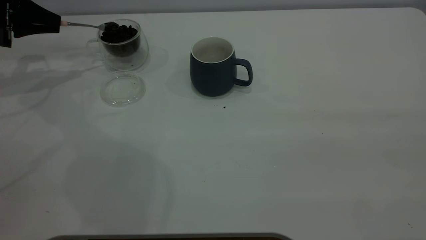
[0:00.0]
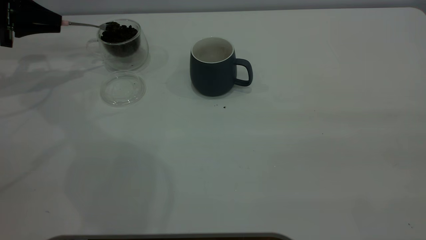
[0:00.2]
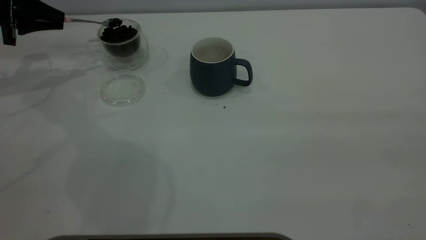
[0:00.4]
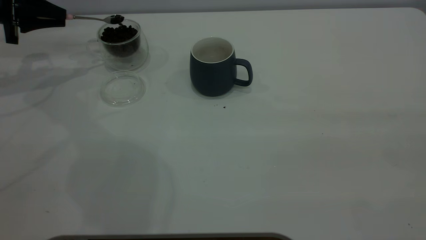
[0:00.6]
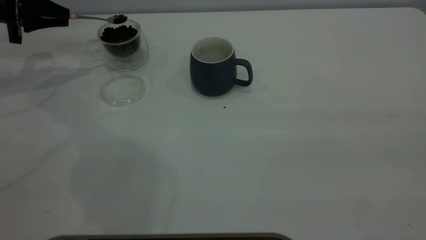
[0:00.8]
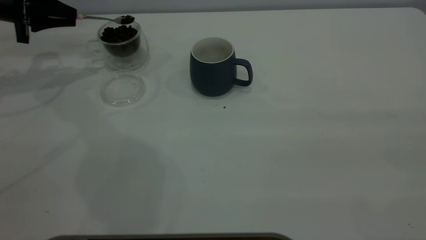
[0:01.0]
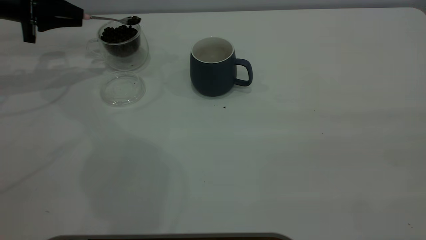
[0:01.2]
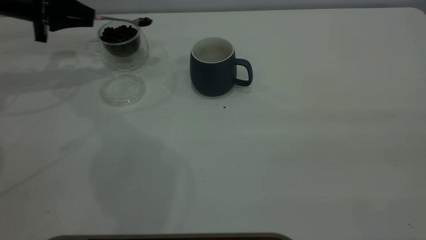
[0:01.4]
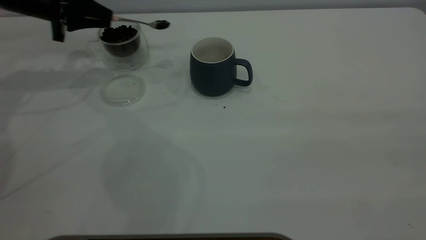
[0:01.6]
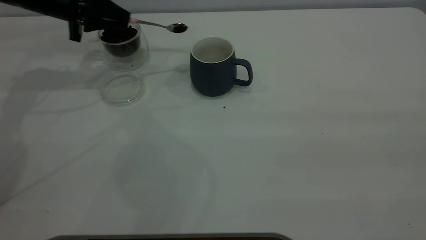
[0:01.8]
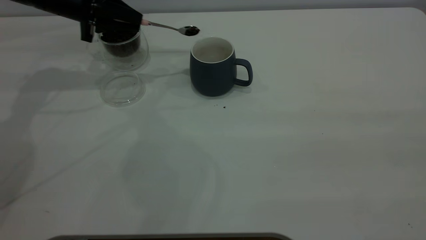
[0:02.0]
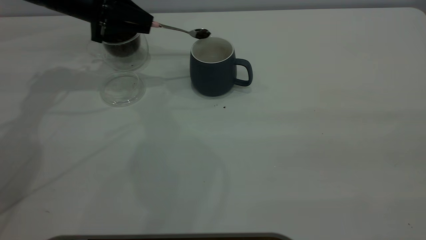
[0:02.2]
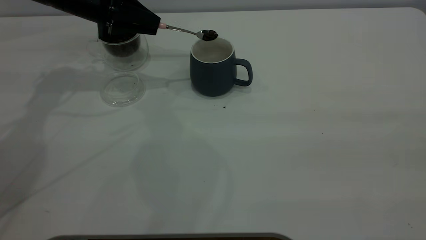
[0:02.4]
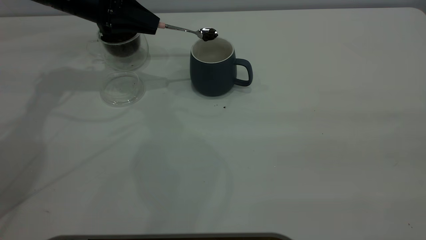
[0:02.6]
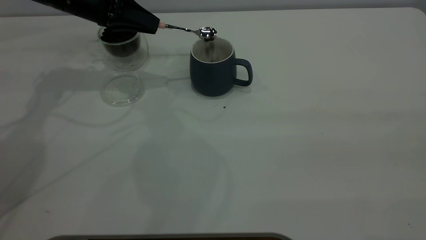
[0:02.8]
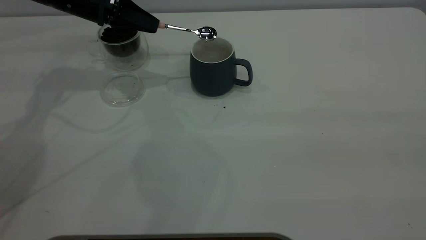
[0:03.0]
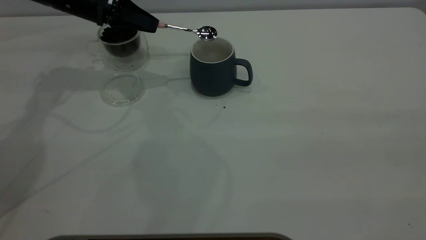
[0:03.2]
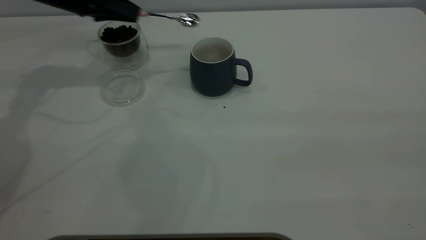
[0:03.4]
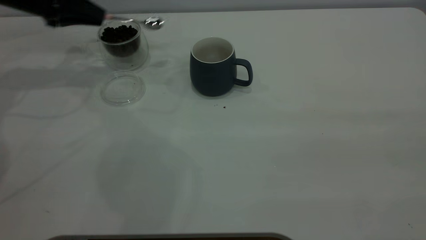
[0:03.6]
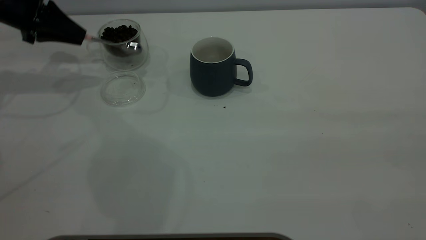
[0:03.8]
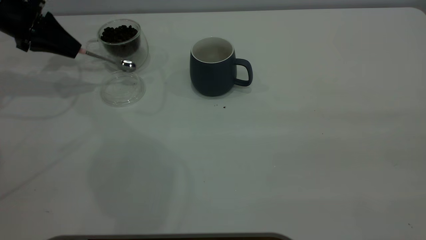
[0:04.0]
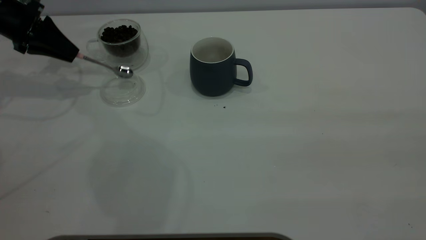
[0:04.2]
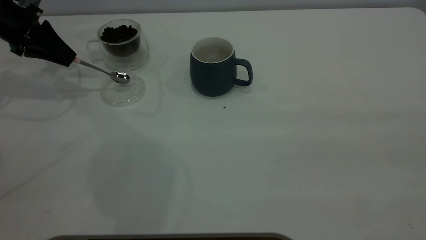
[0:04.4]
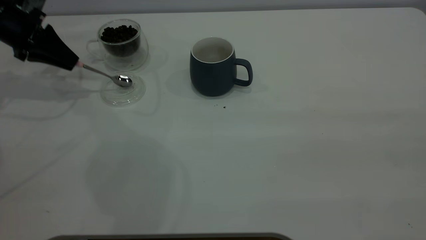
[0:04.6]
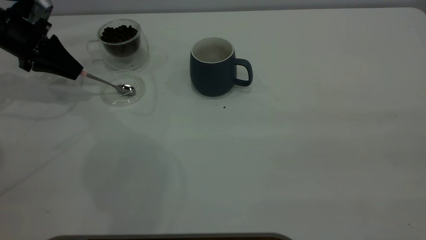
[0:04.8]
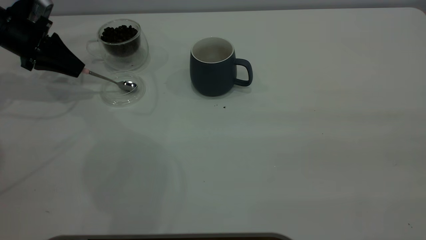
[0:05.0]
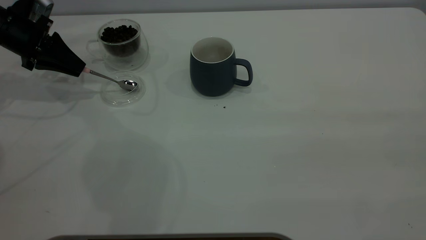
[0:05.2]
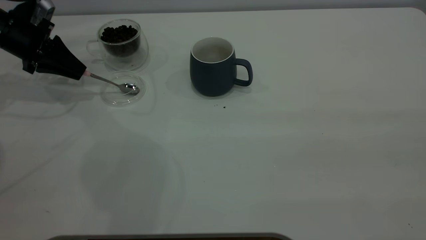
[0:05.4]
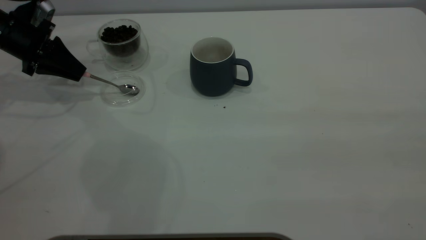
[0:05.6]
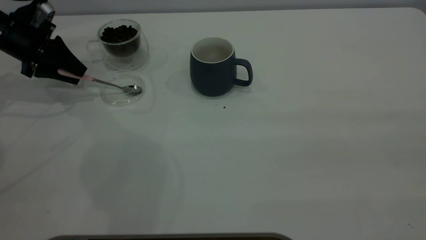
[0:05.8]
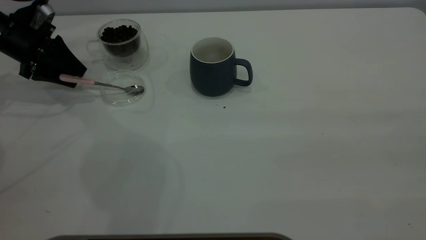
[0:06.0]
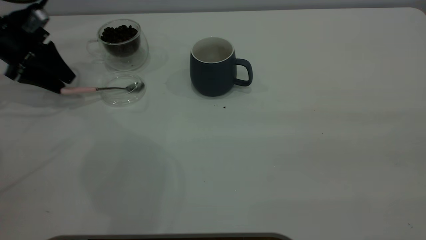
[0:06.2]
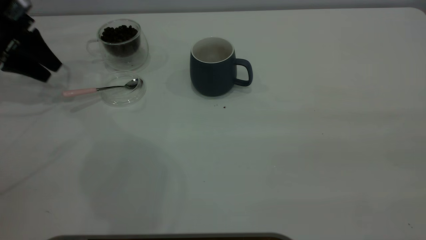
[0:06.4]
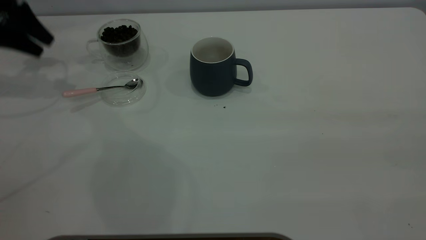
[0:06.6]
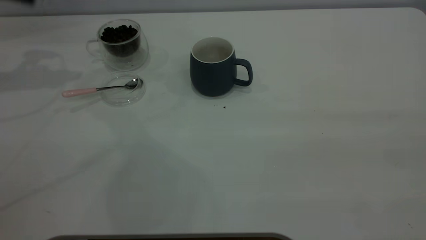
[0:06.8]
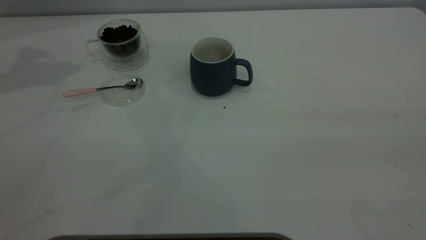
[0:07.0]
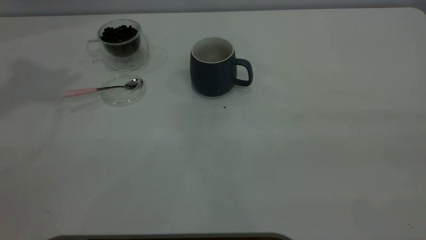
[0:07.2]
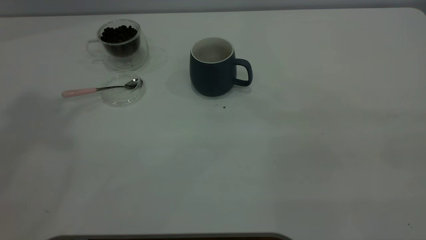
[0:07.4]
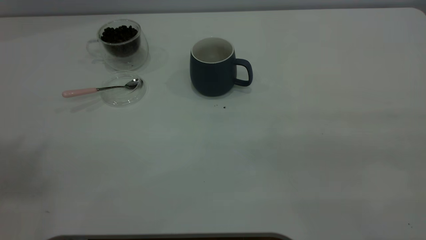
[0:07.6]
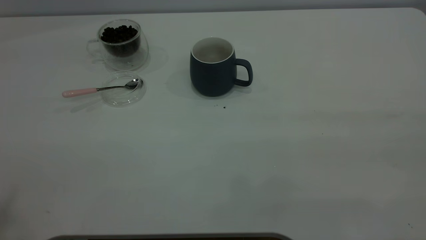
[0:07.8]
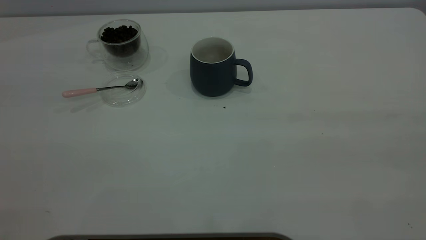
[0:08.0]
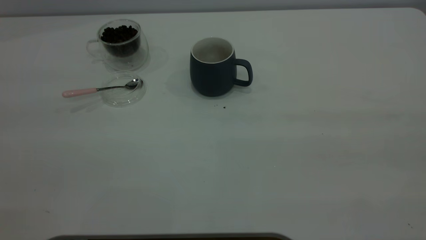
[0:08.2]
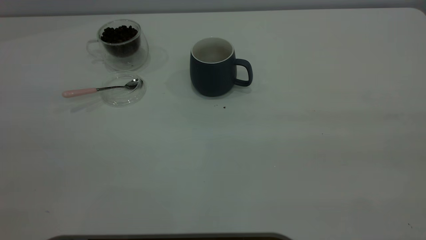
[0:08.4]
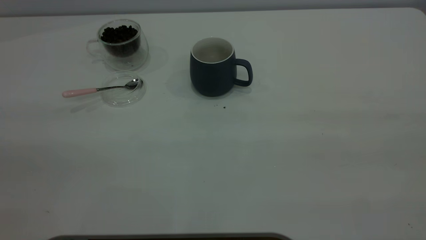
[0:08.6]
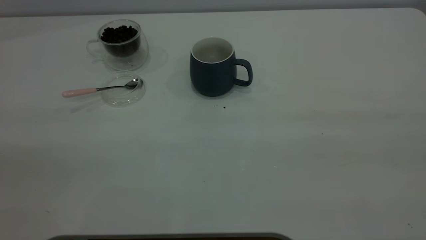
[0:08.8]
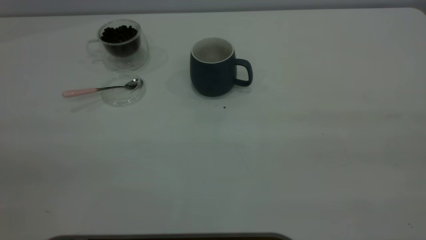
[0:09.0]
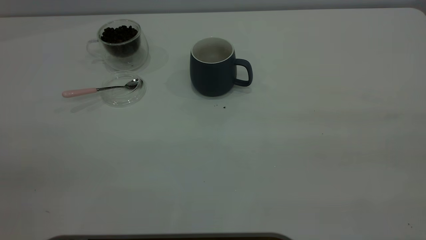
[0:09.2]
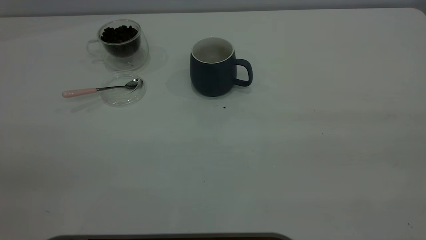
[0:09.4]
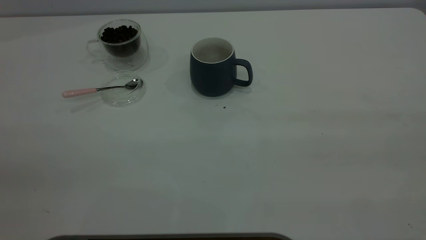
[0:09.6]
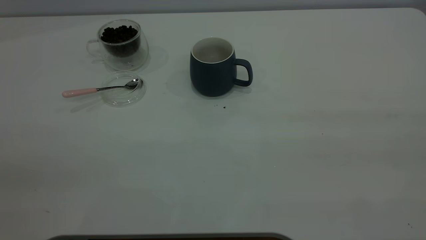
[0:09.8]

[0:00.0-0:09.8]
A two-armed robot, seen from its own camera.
Task of the whole recording: the right gripper place the grey cup in the center of the table, the left gripper take the pink spoon from the cup lid and scoop out the coffee beans from the coffee cup and put them into the grey cup, the left gripper put the spoon back into the cup lid.
Step, 0:00.0 to 0:03.2: Scoop a spoonful of beans into the cup.
Step, 0:03.4 to 0:06.2: Place the spoon back in its original place.
0:00.0 to 0:01.4: The left gripper shifts roughly 5 cm to the right.
0:01.4 to 0:02.8: The left gripper goes some 10 cm to the right.
0:02.8 to 0:04.2: The left gripper shifts approximately 15 cm to the left.
0:04.2 to 0:05.6: The grippers move only a little.
0:05.6 to 0:07.0: The left gripper travels upward by roughly 30 cm, and opens up.

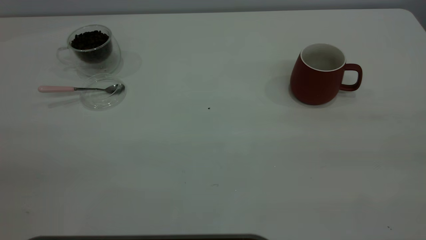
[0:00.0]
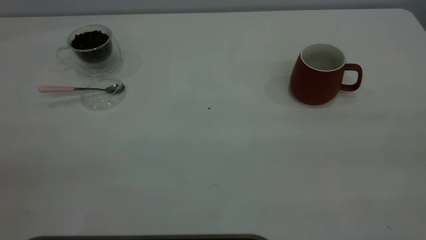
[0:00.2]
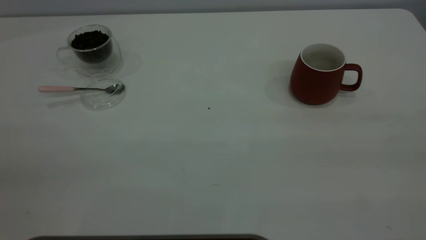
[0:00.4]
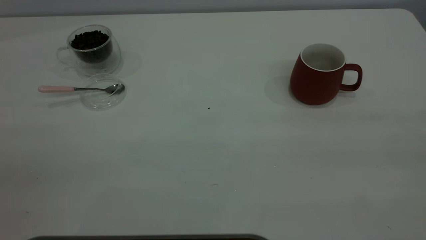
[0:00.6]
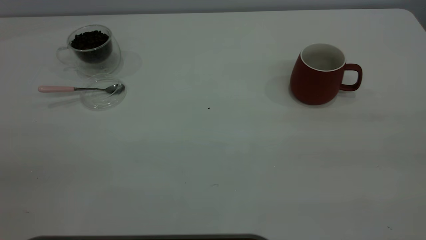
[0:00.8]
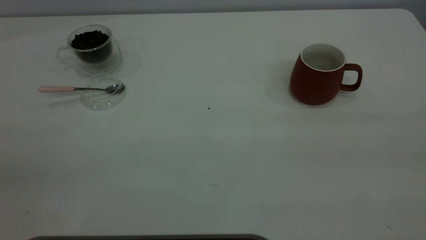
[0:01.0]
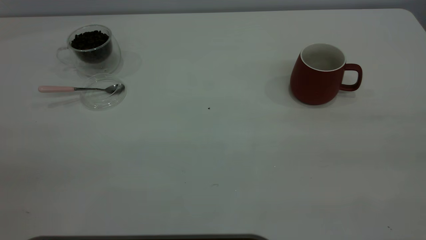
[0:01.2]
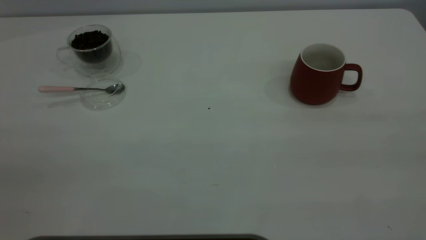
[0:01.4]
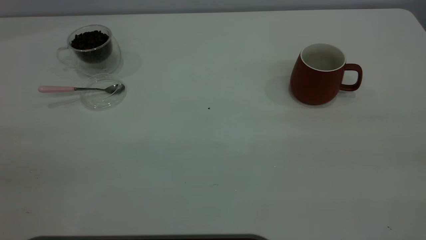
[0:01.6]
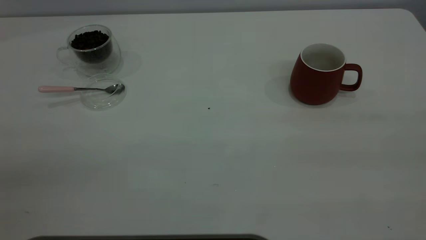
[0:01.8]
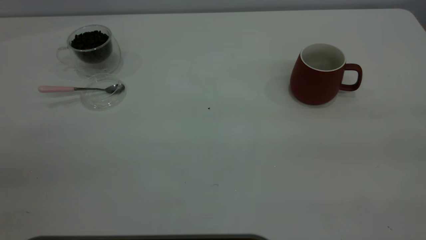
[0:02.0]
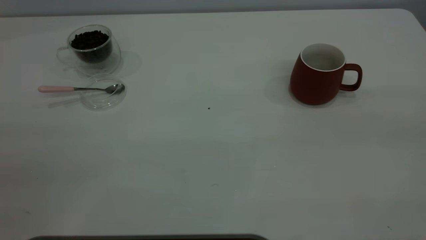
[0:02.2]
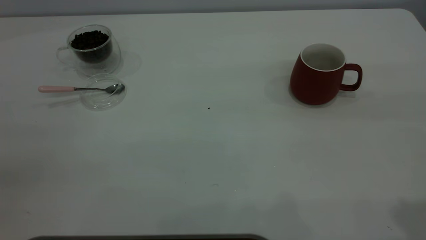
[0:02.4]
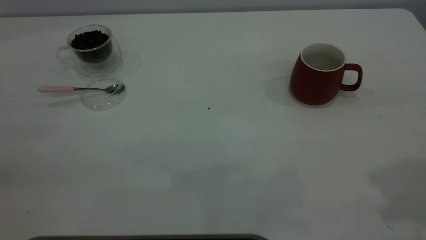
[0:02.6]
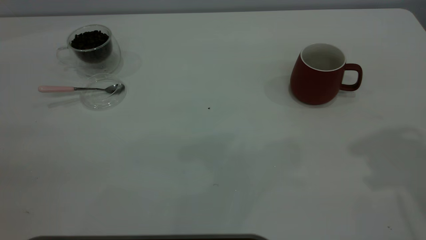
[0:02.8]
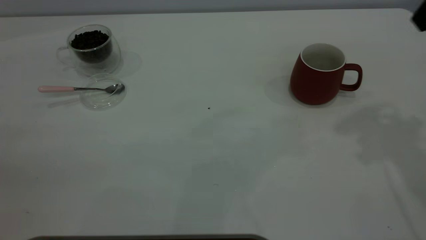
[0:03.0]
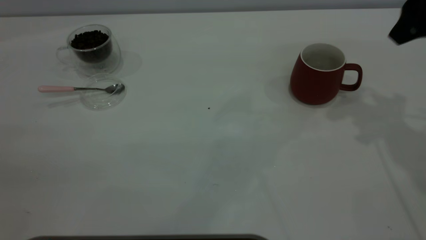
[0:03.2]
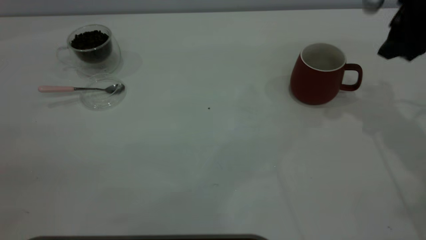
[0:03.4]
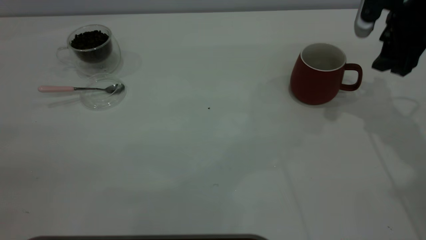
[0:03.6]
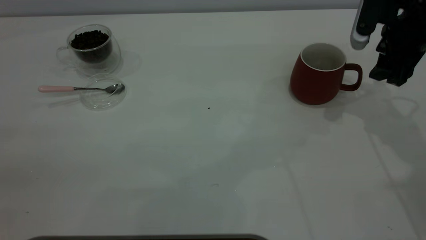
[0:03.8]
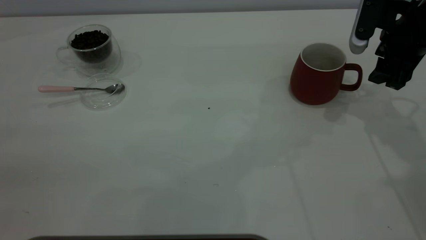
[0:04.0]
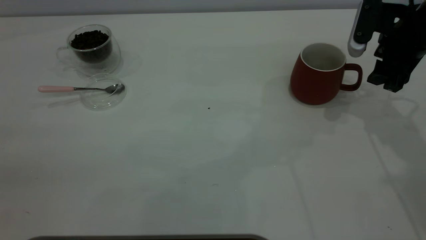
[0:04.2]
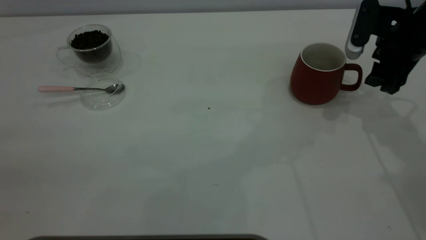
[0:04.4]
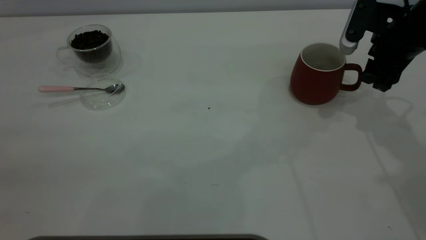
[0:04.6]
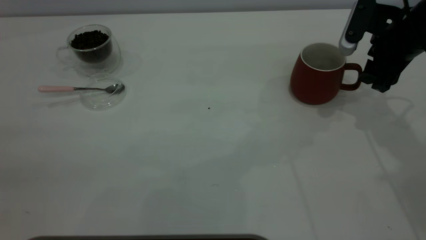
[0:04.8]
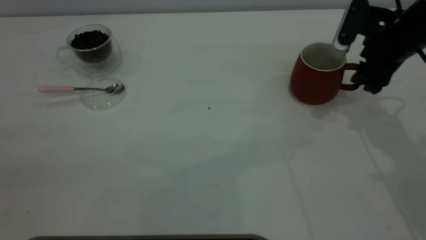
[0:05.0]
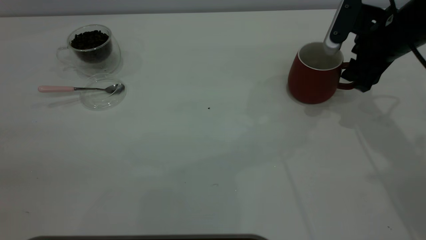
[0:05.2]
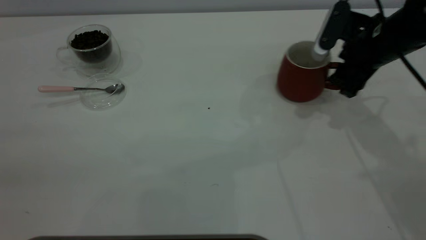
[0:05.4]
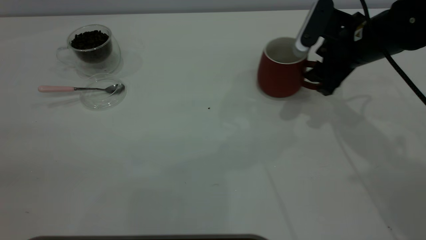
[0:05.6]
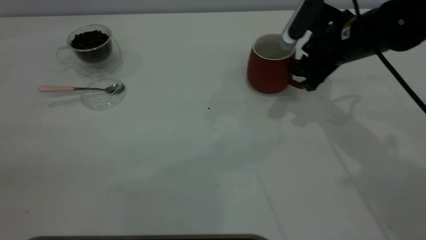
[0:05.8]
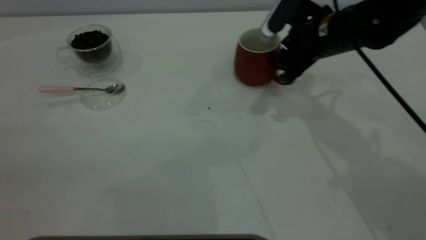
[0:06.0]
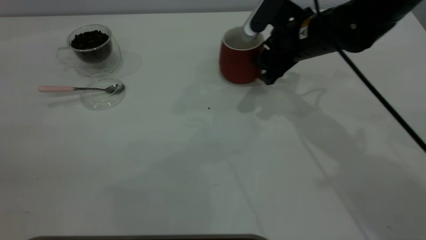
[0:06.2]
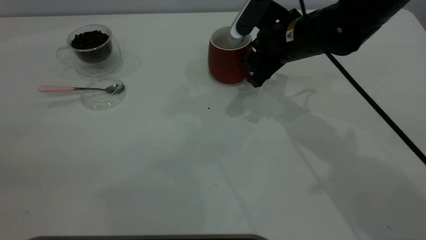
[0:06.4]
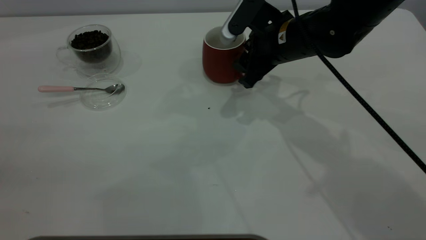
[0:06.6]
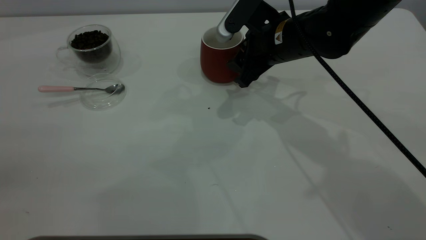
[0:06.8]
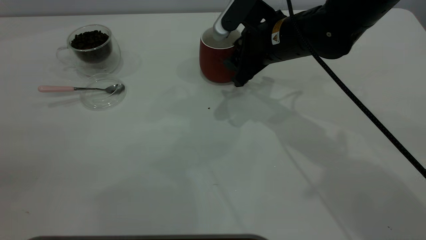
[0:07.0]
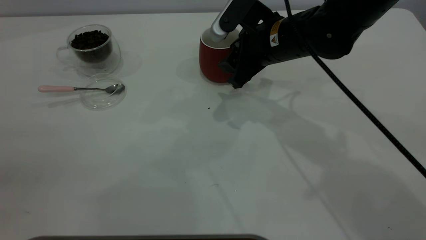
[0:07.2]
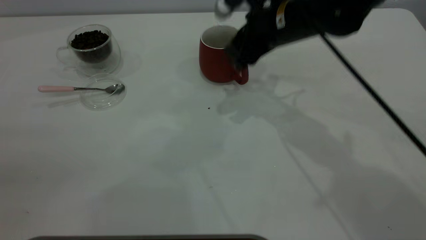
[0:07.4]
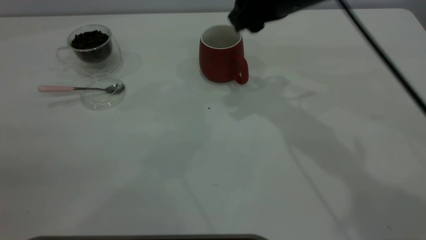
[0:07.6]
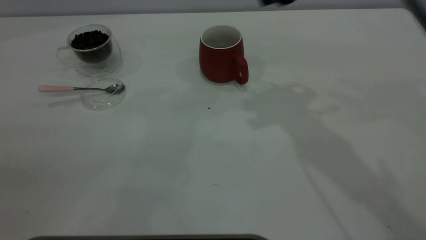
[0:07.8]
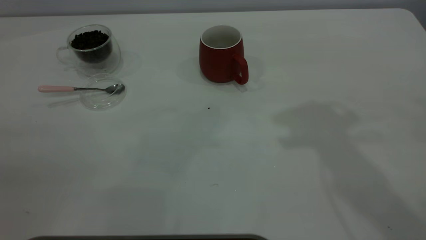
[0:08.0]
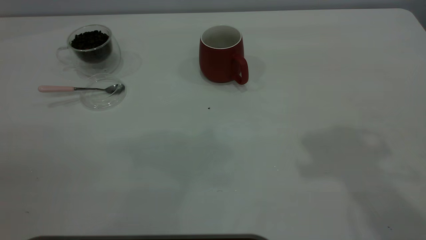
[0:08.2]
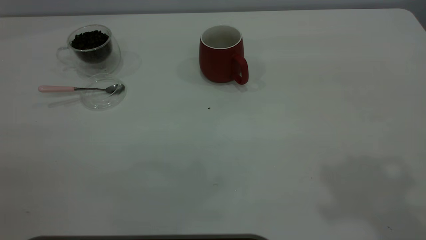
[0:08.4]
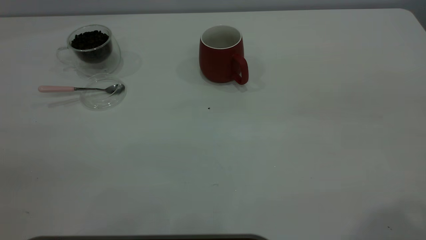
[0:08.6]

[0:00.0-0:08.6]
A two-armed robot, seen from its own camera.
Task of the whole recording: the right gripper place the red cup in the center of the table, the left gripper take the pink spoon from the cup lid and scoop out the coffee beans from the coffee cup and put them into the red cup, the left gripper put the spoon back into the cup lid.
Step, 0:00.0 to 0:07.6: Move the cup to the center of view.
0:00.0 to 0:01.4: Both grippers stay about where they are.
0:02.8 to 0:04.4: The right gripper heads downward and forward, covering about 20 cm.
0:04.4 to 0:05.8: The right gripper travels to the left by roughly 10 cm, and closes its fingers.
0:05.8 to 0:07.2: The right gripper is displaced to the left by some 10 cm.
0:07.2 to 0:08.6: The right gripper travels upward, backward and to the right by about 40 cm.
